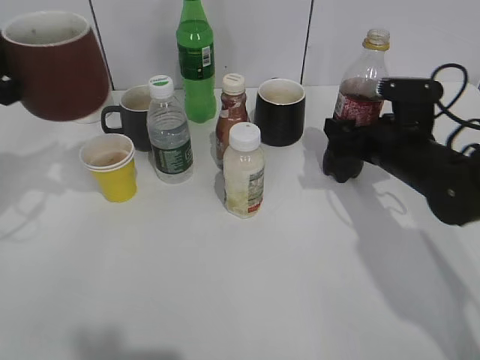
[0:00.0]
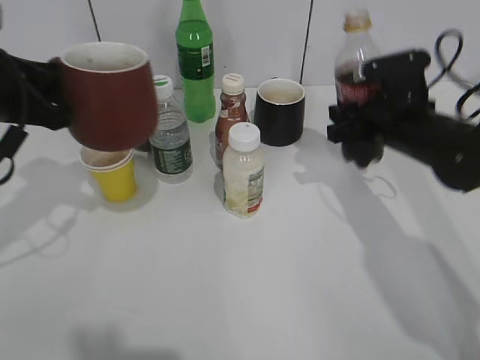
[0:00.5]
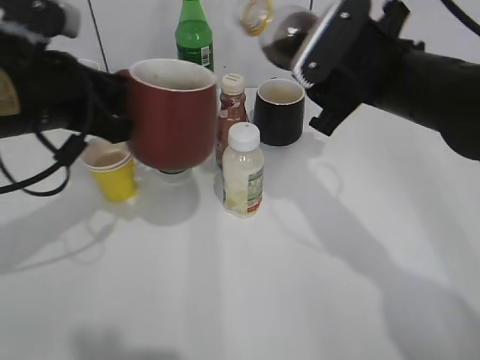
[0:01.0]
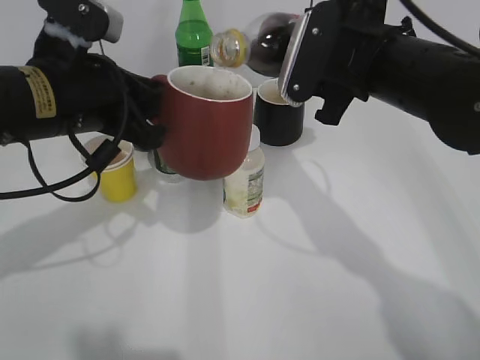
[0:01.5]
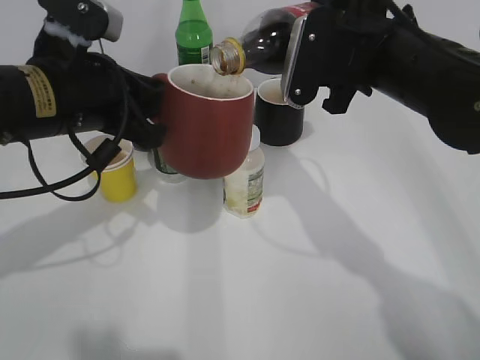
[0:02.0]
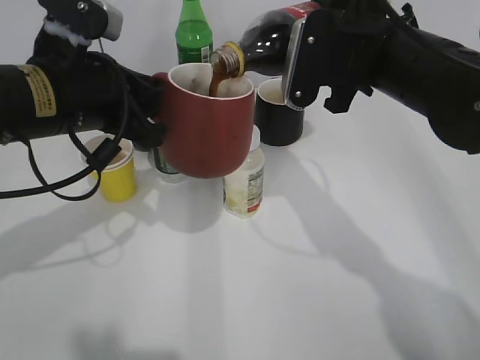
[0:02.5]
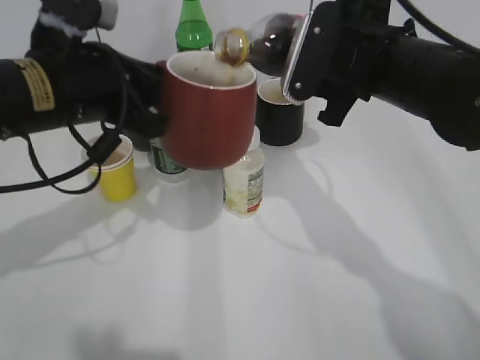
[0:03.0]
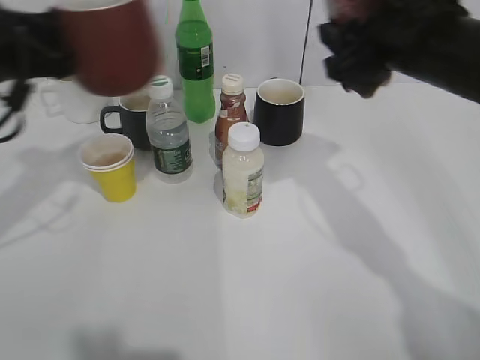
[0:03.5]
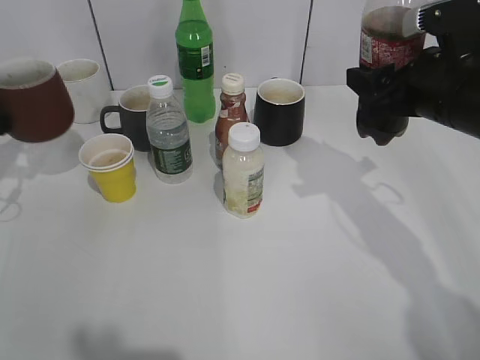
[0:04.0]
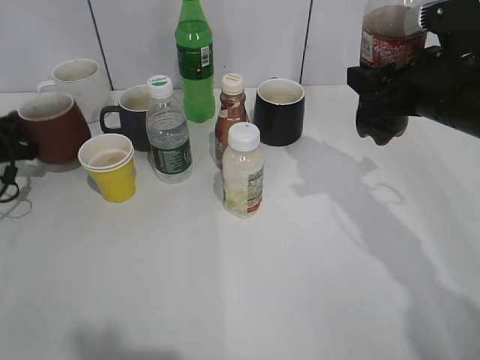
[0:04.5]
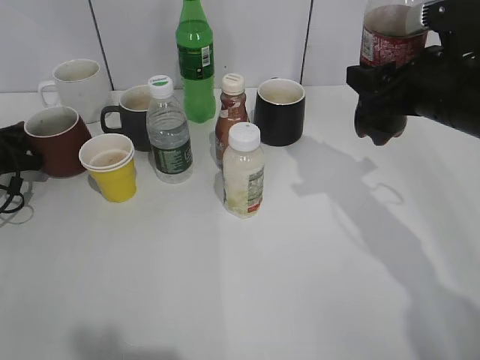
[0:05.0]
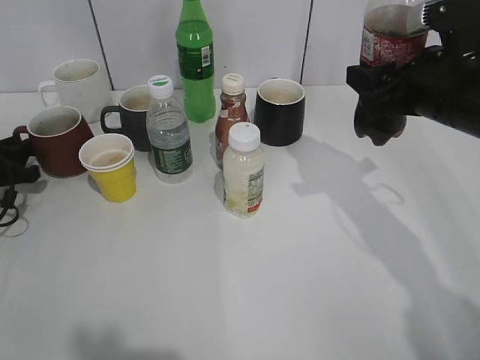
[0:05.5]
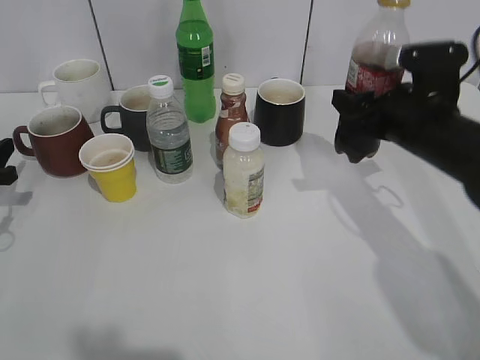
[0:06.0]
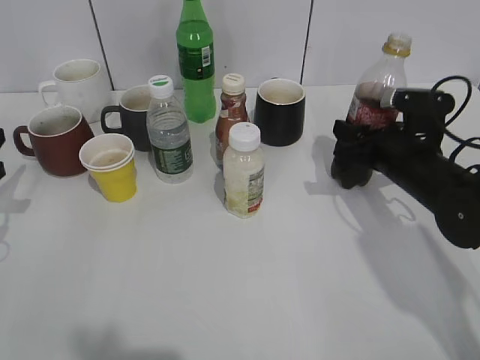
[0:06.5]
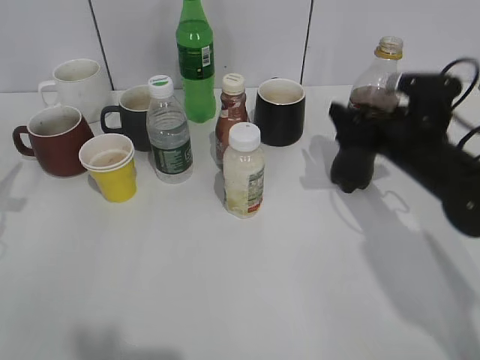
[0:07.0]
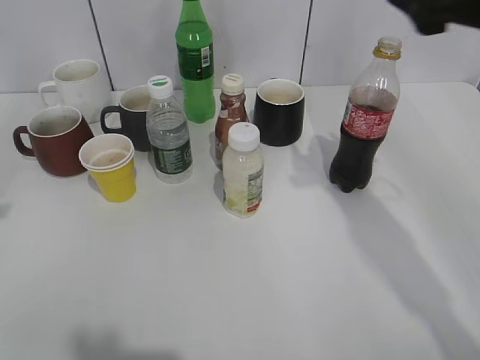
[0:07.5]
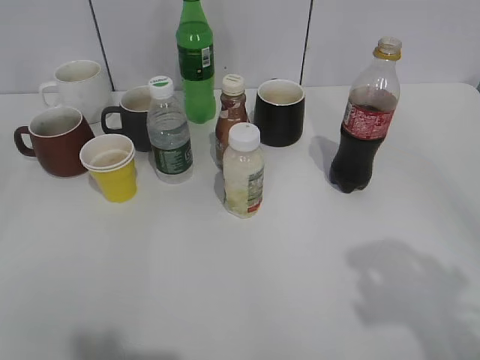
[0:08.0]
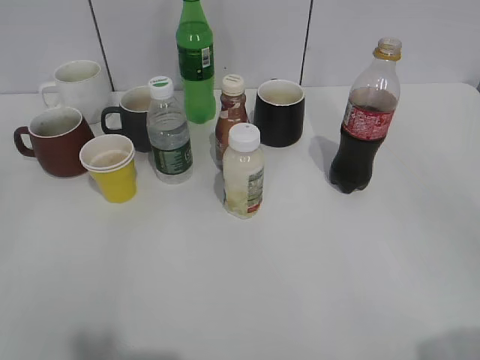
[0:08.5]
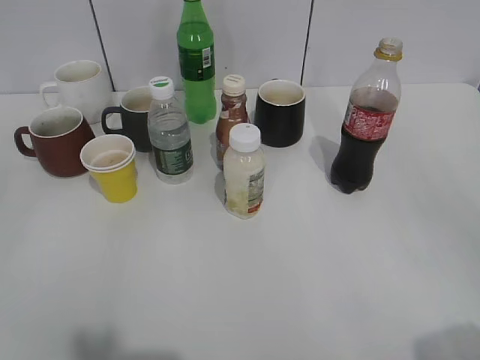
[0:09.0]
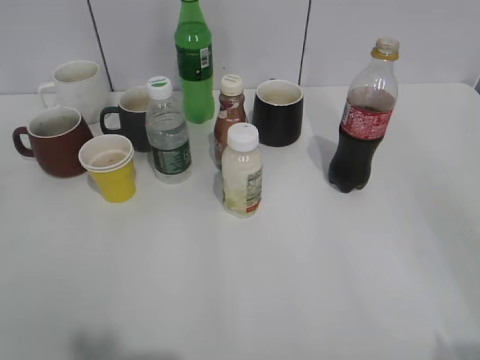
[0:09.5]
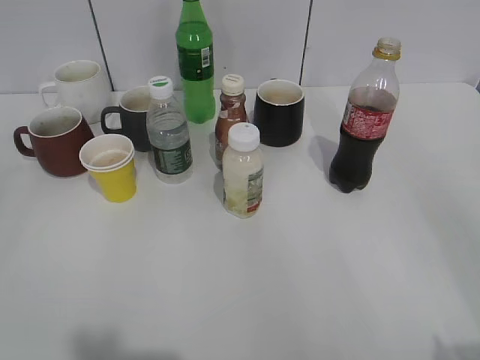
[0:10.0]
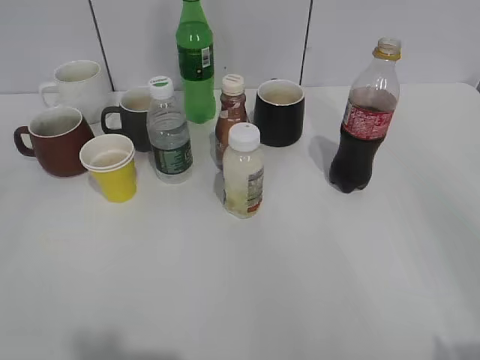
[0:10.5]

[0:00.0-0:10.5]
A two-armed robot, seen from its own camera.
Step, 0:00.5 to 0:03.0: Pour the cola from bottle to cup with right gripper.
Step, 0:03.5 to 0:07.0: Place the cola bottle on the table with right gripper.
0:00.0 to 0:02.0: The right gripper shifts roughly 15 cm upward and to the left, and closes; the left gripper goes about 15 cm to the right.
0:02.0 to 0:04.0: The left gripper travels to the left and downward by about 25 cm; the right gripper travels to the right by about 5 cm.
0:04.0 to 0:06.5: The left gripper heads backward, covering approximately 5 cm, moves about 10 cm downward and comes back, and opens up, while the right gripper moves downward, some 10 cm.
0:06.5 to 0:08.5: Both grippers travel together backward and upward, roughly 35 cm. The right gripper opens up.
